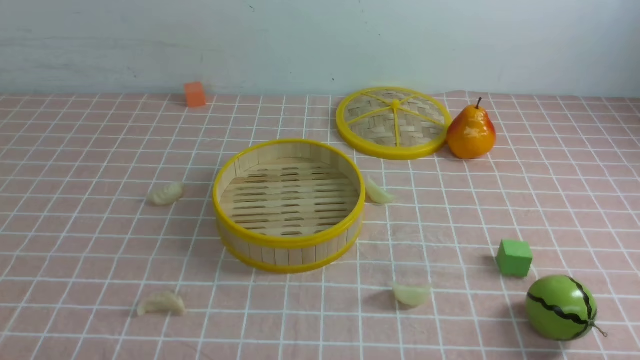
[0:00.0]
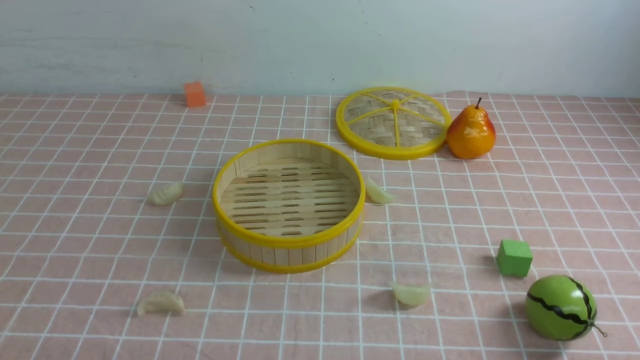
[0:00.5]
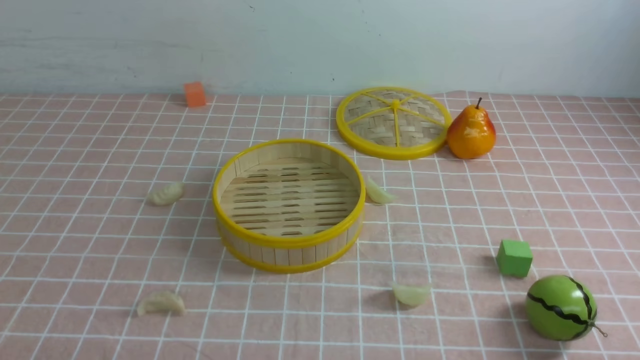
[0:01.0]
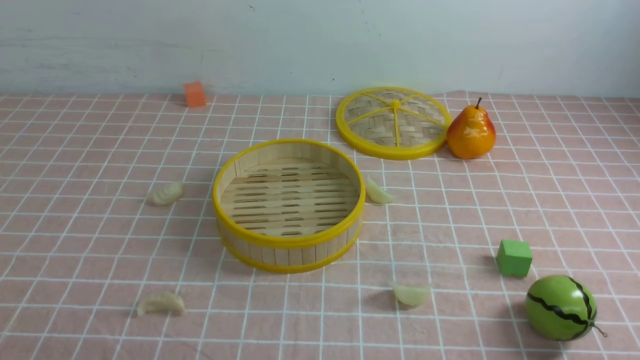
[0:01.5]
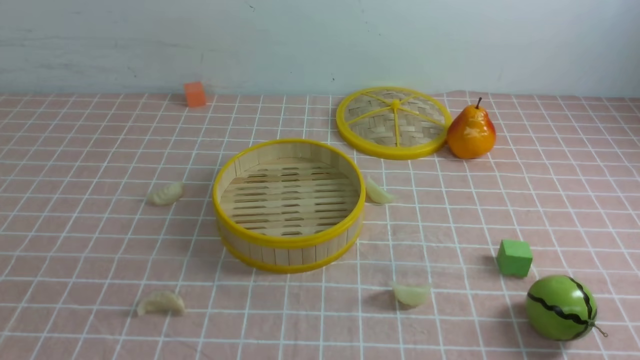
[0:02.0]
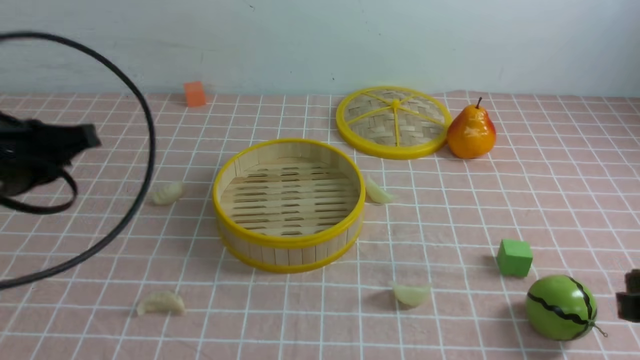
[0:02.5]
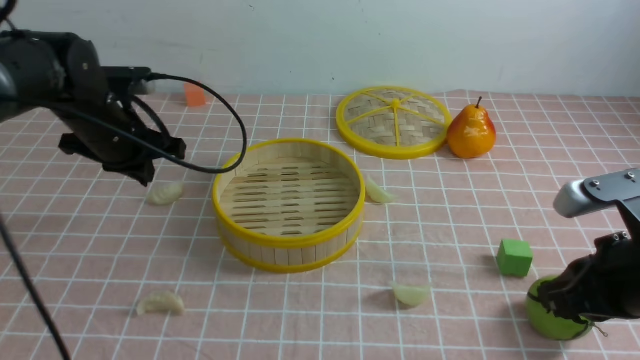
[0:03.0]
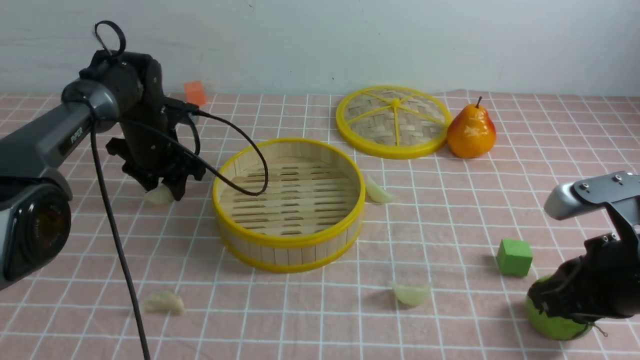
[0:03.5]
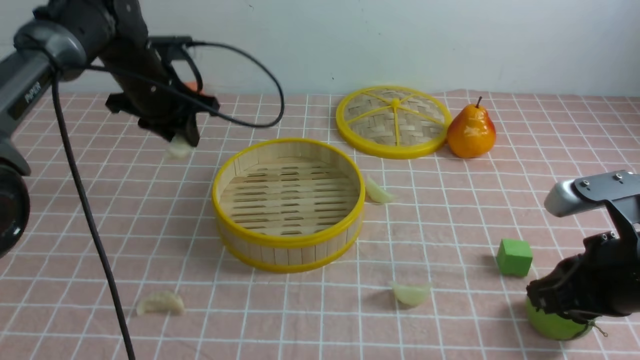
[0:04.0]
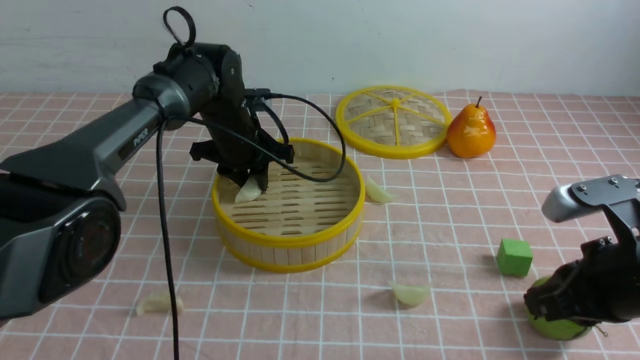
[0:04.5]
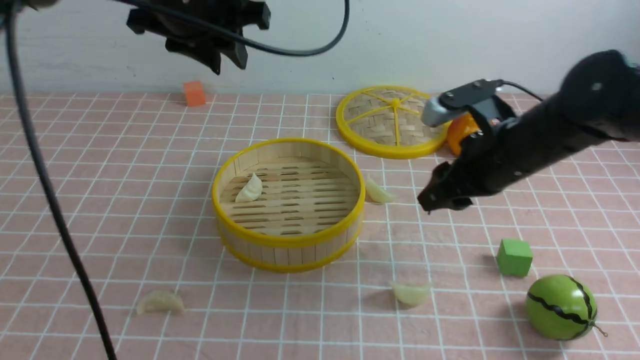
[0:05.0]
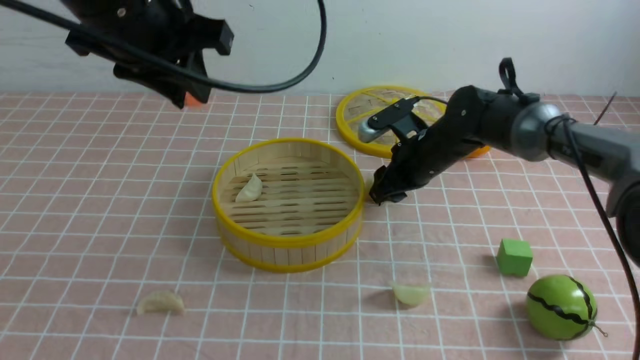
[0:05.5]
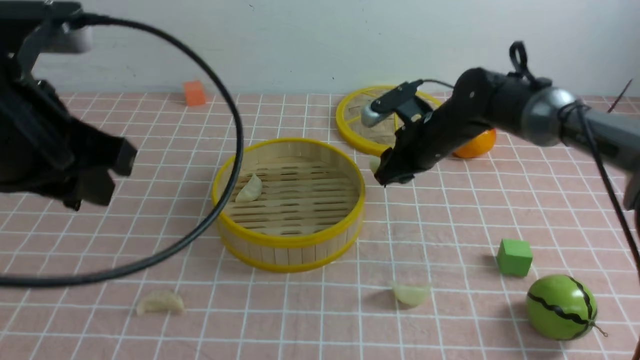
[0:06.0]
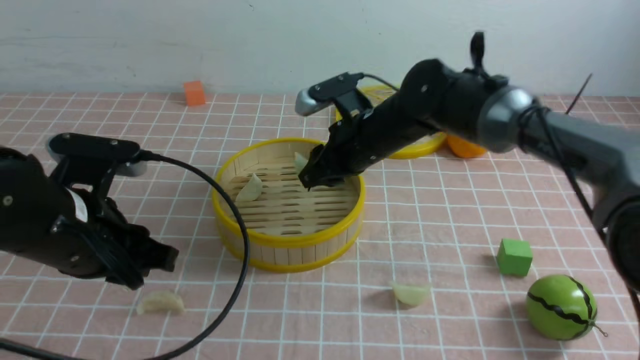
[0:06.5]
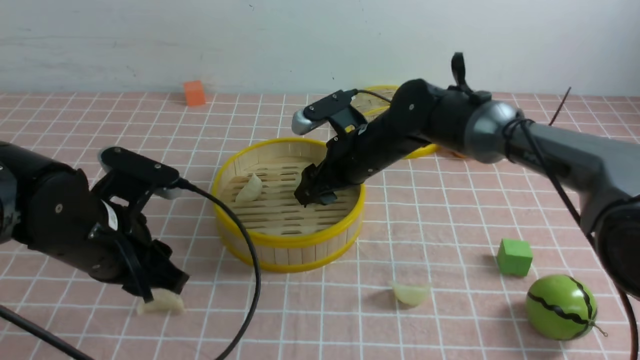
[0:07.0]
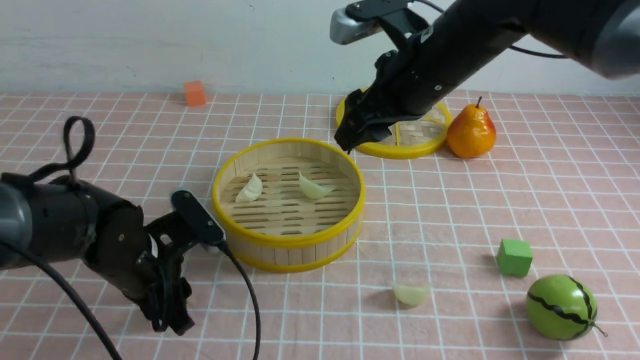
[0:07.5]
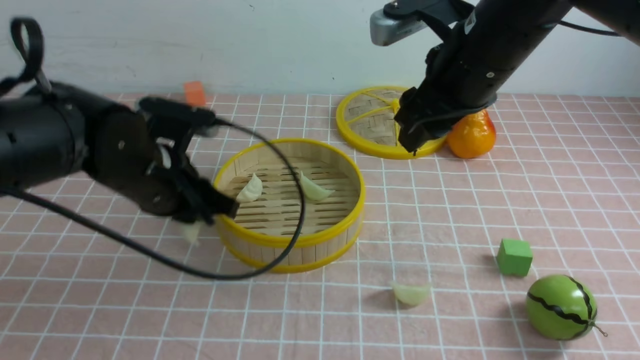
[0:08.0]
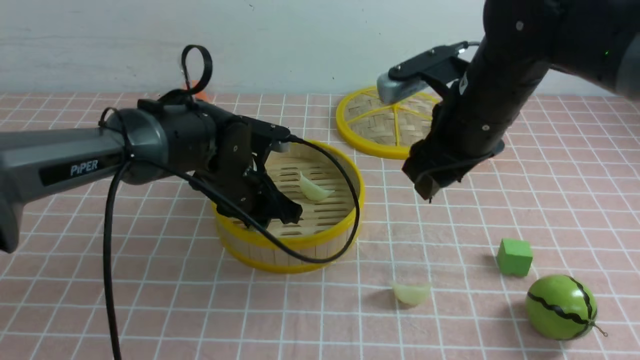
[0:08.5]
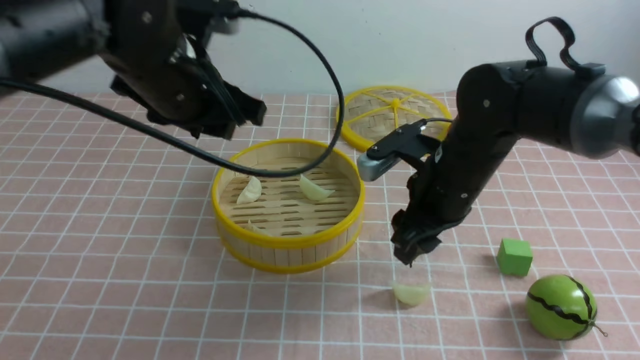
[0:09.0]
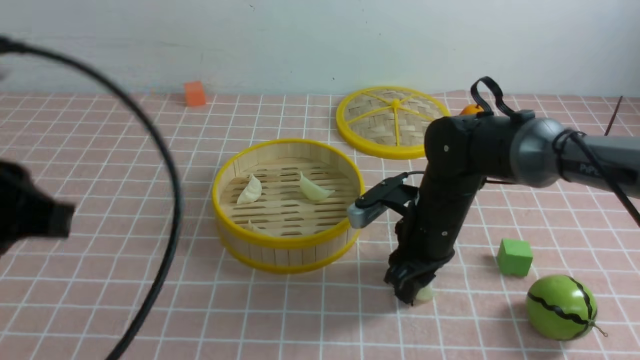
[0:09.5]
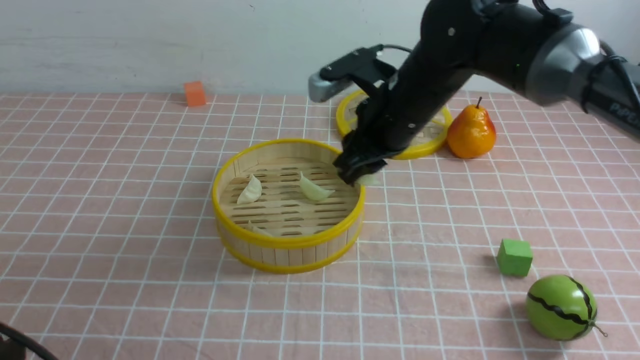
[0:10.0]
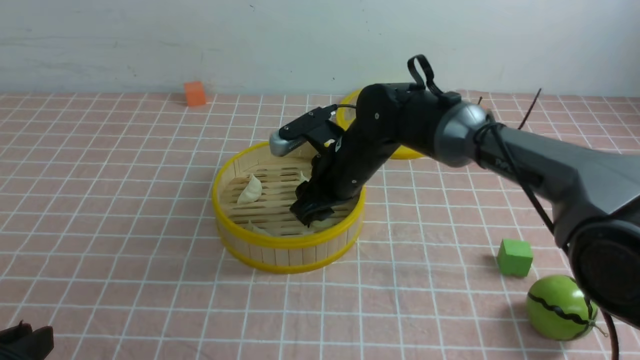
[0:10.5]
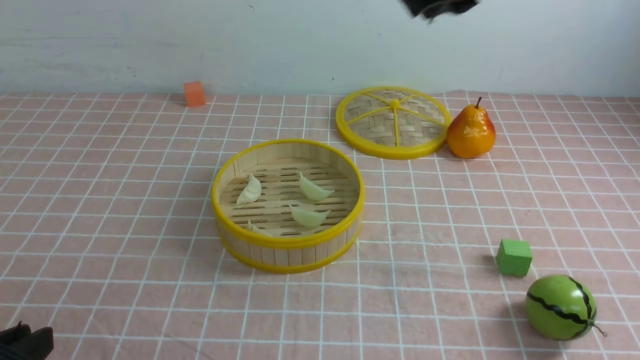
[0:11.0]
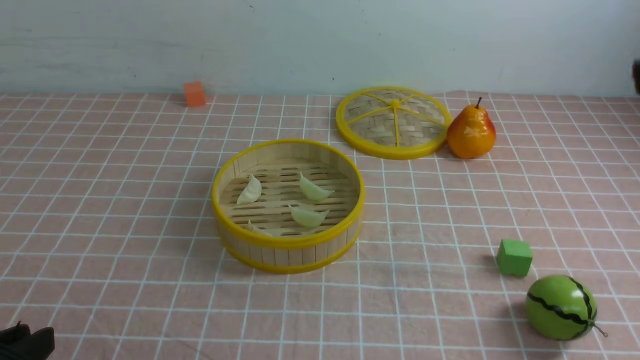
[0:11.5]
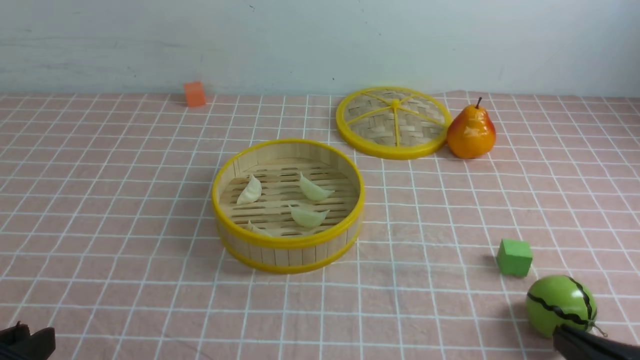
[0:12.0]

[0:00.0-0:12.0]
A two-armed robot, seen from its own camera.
Task of the whole recording: put the dumplings into the steamer on the table with the pink tablecloth.
Step, 0:00.0 to 0:03.5: use the left arm to grab a dumpling.
Step, 0:04.0 to 0:04.5: use the left arm to put the dumpling into the steamer.
Step, 0:05.0 to 0:05.5: use the right arm to grab a dumpling.
Step, 0:06.0 to 0:07.0: use the right arm to put the dumpling into the steamer.
Step, 0:08.0 to 0:08.5: use the left arm to put the dumpling into the steamer.
Step, 0:09.0 to 0:09.5: use the right arm to grab a dumpling.
Step, 0:10.0 to 0:10.5: use the right arm to put the dumpling into the steamer.
0:02.0 to 0:04.0: The left gripper travels forward by approximately 40 cm, and opens. Meanwhile the right gripper moves forward, some 15 cm.
0:04.0 to 0:06.0: The left gripper goes about 30 cm backward and upward; the right gripper is displaced forward and to the left by approximately 30 cm, and opens its fingers.
0:06.0 to 0:08.0: The left gripper shifts roughly 15 cm downward, forward and to the right; the right gripper shifts some 20 cm upward and backward.
0:08.0 to 0:10.0: The left gripper heads backward and to the left, covering some 25 cm, and opens, then closes once more; the right gripper shifts some 10 cm downward and to the left, and closes its fingers.
0:10.0 to 0:12.0: The right gripper moves backward and to the right, approximately 35 cm, and closes up.

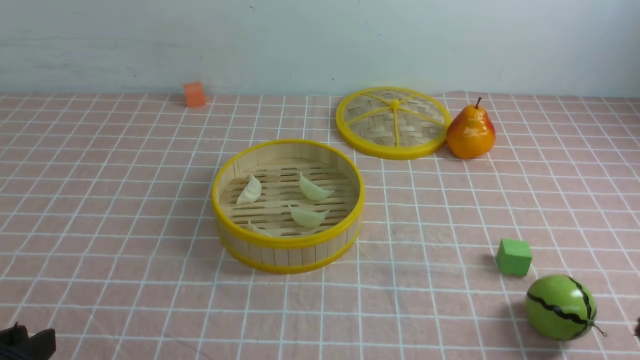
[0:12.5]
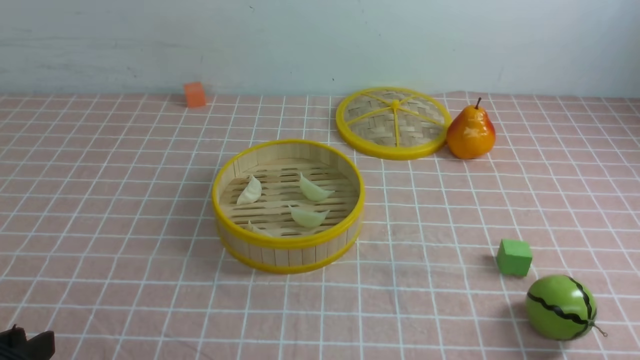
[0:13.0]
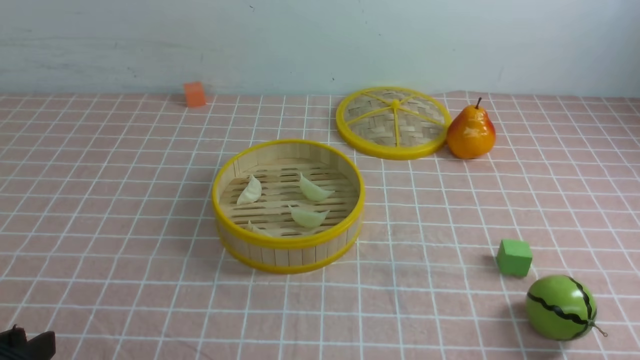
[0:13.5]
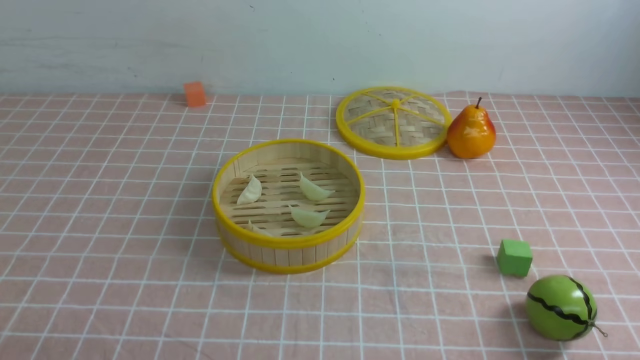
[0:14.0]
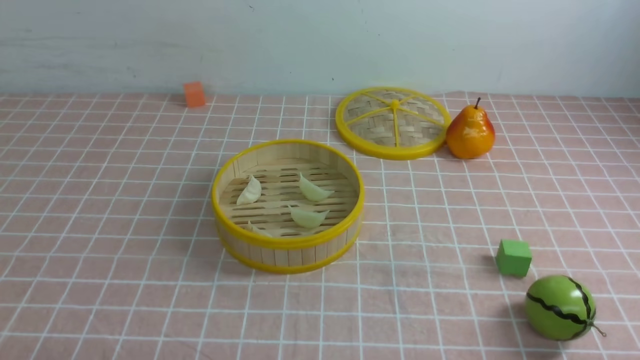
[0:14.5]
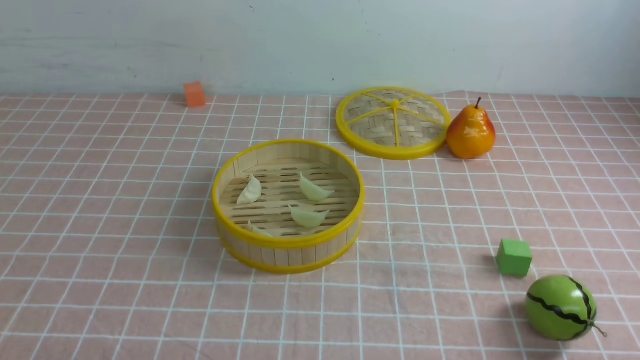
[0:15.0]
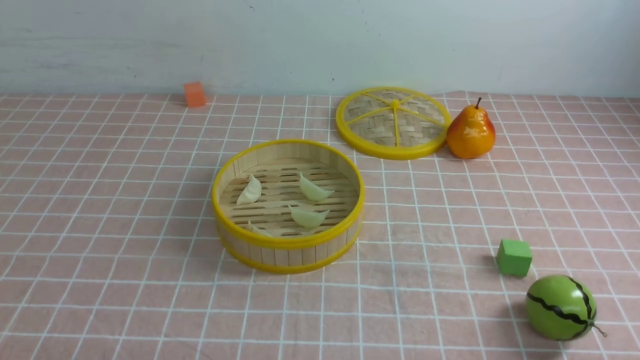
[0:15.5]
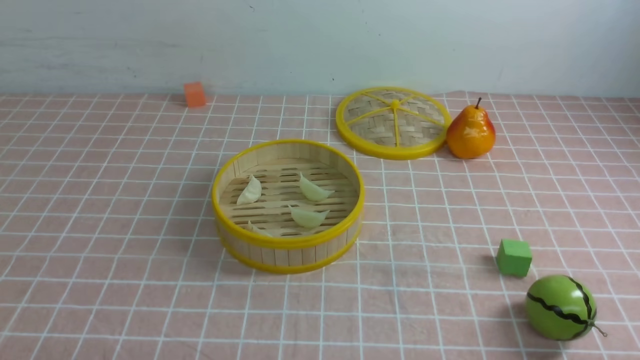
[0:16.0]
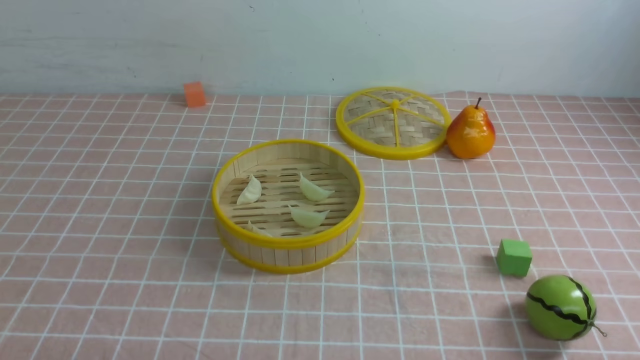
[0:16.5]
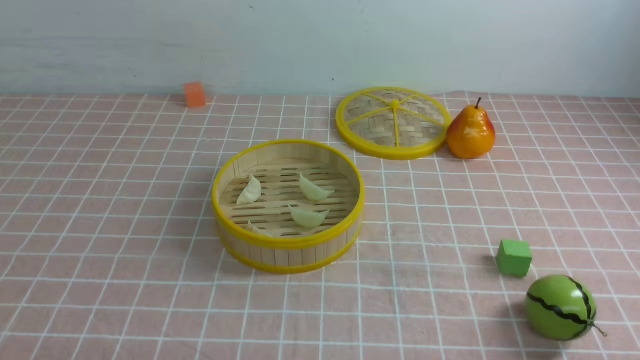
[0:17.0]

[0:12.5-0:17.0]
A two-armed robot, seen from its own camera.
Task of the whole recording: put the dumplings into the steamer on the table with the pink tablecloth.
0:12.5 to 0:14.5: The left gripper shifts roughly 5 cm downward, and closes.

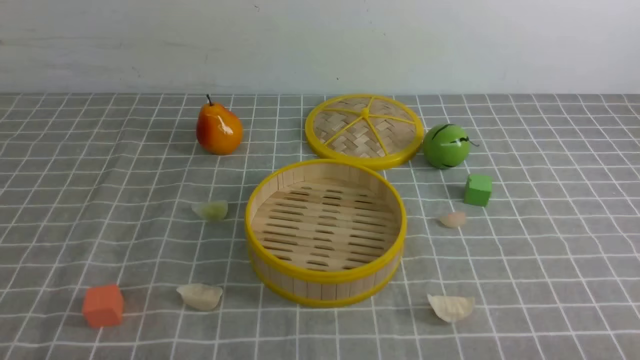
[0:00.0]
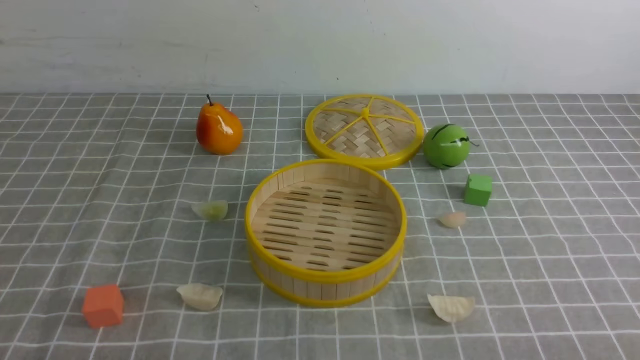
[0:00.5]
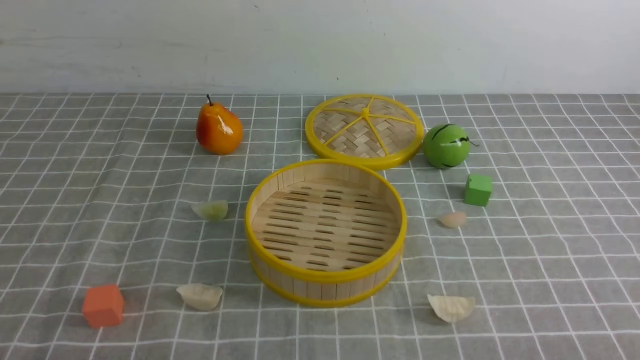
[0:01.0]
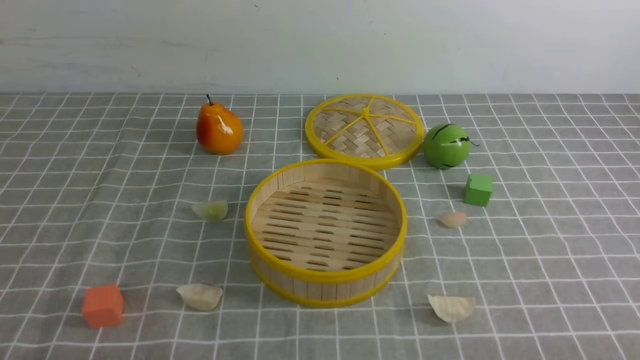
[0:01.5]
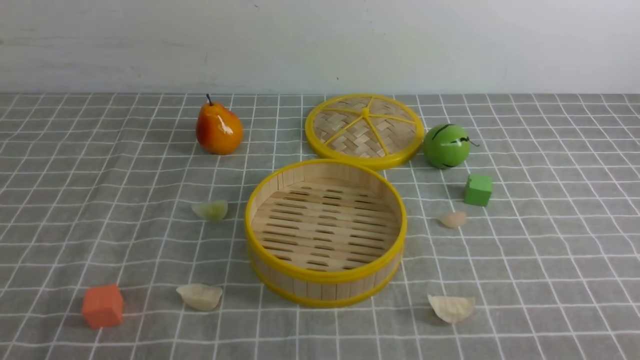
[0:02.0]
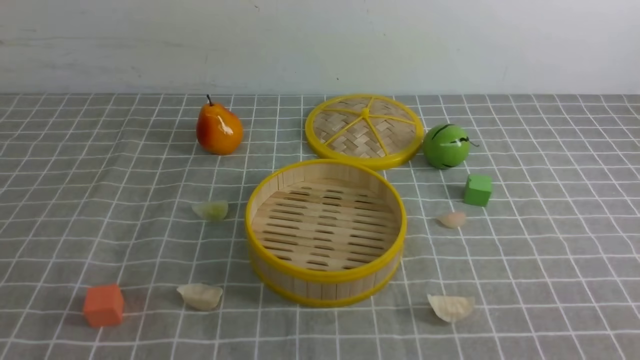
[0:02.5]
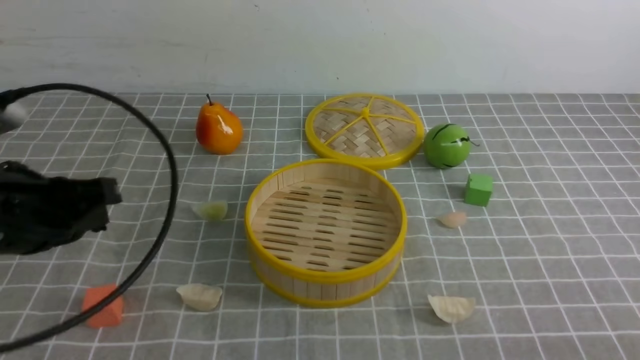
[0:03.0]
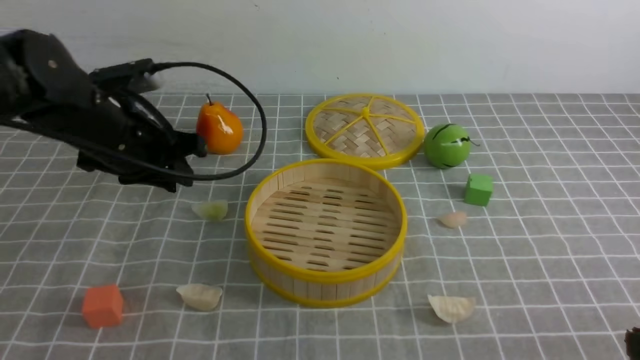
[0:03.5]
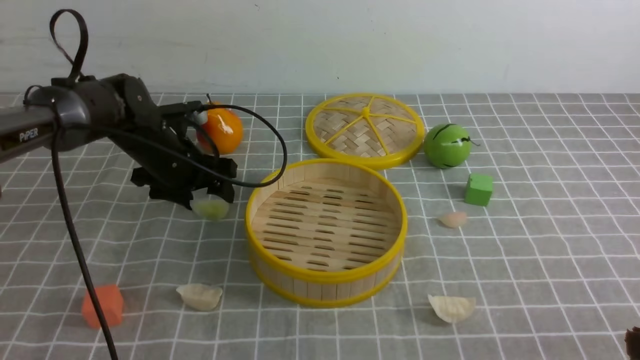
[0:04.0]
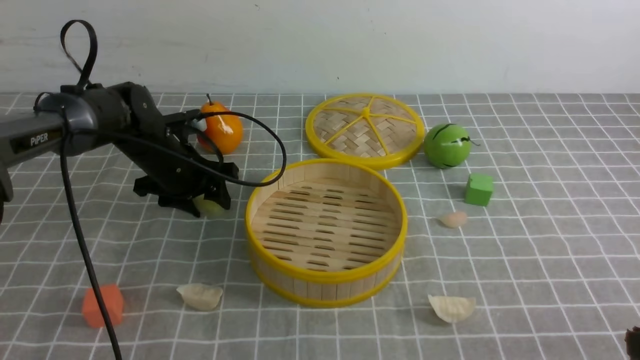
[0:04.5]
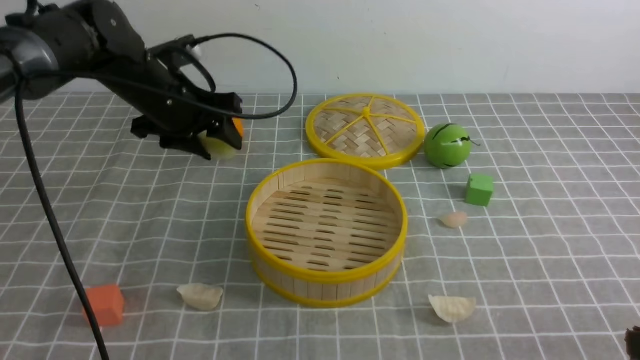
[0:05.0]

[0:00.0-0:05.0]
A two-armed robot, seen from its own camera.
Task of the whole recording: put the dumplings into the steamer on the table with the grey tablecloth.
Step, 0:00.0 to 0:04.5: use the left arm to grab a dumpling.
0:02.5 to 0:05.0: The left gripper is displaced forward by approximately 40 cm, and opens up, while the right gripper is displaced forward and downward by approximately 10 cm.
